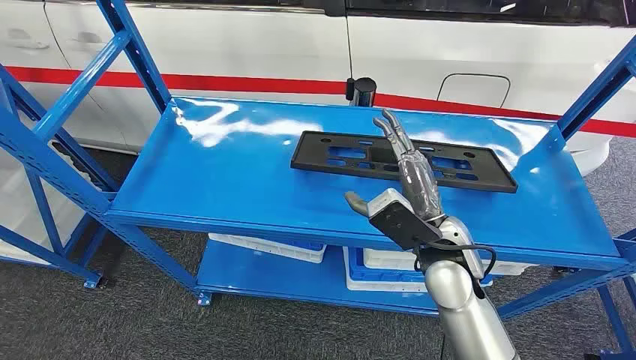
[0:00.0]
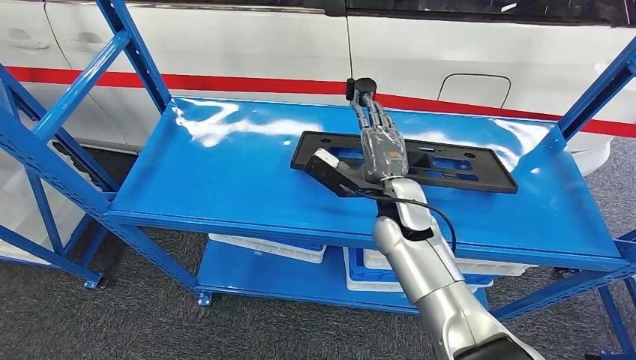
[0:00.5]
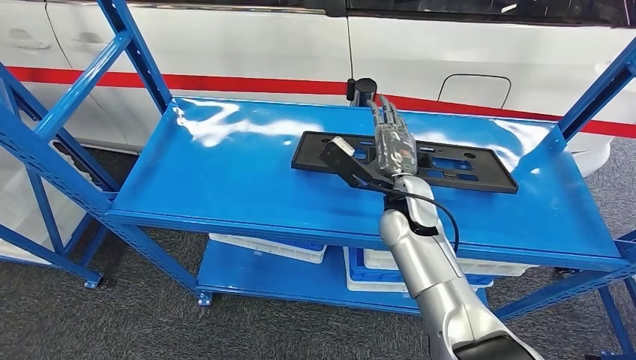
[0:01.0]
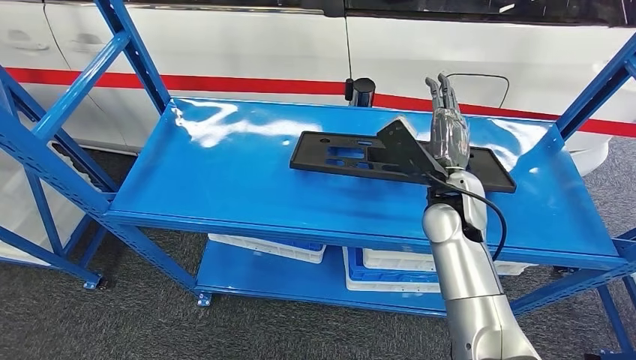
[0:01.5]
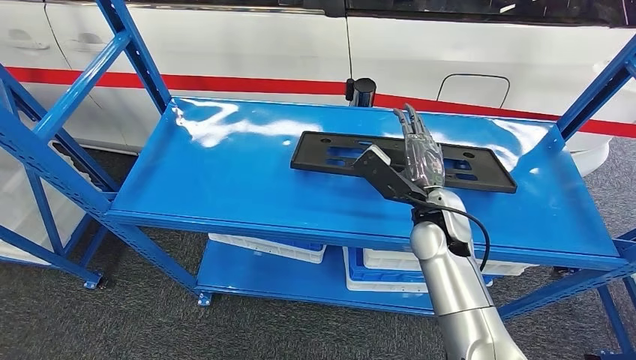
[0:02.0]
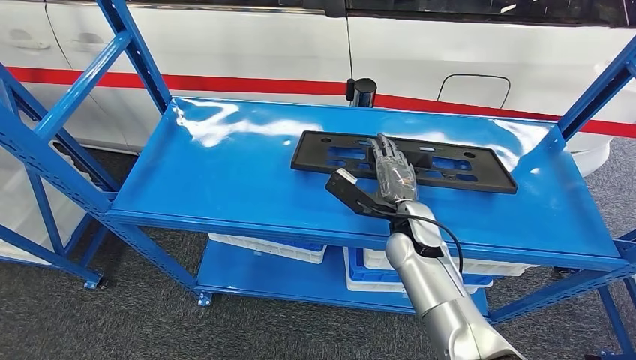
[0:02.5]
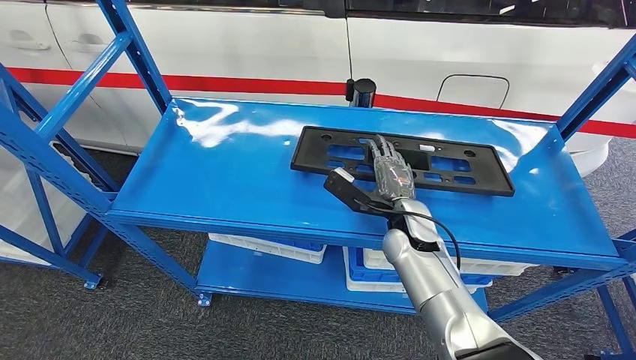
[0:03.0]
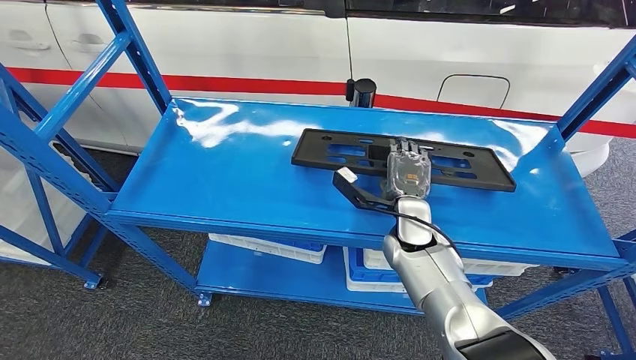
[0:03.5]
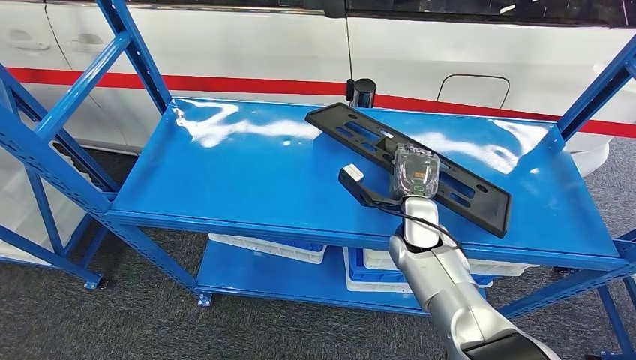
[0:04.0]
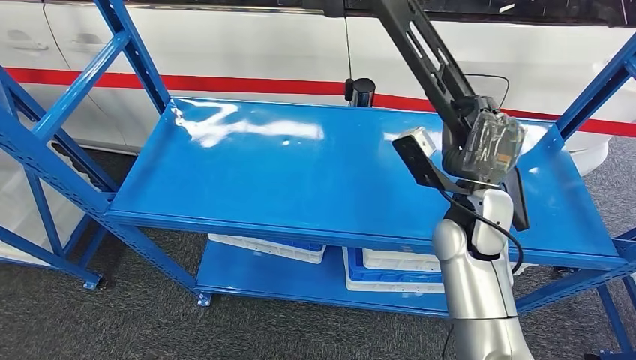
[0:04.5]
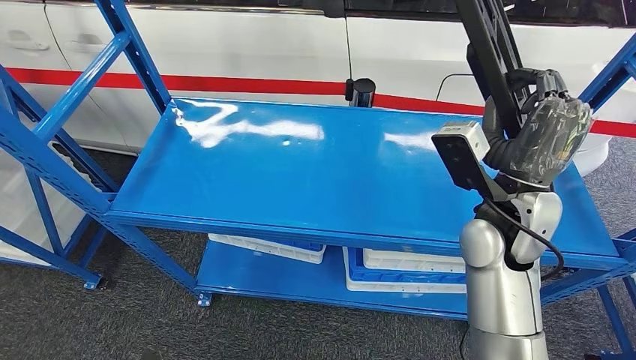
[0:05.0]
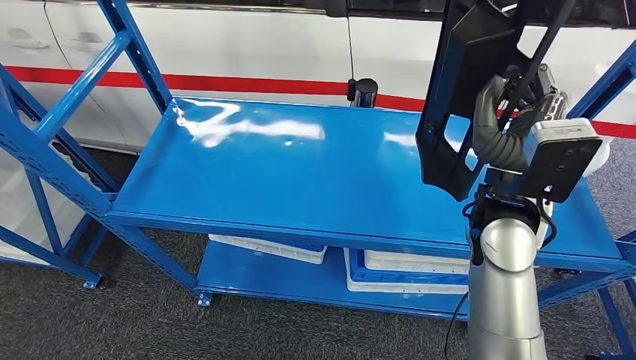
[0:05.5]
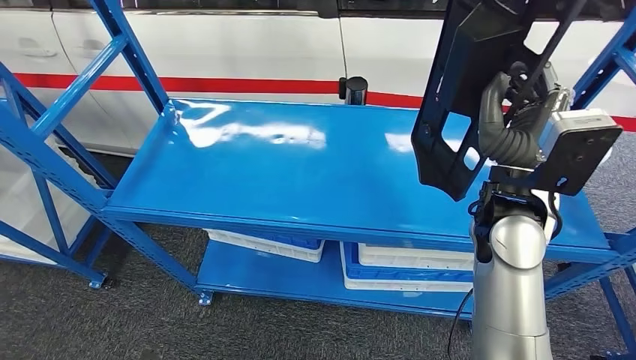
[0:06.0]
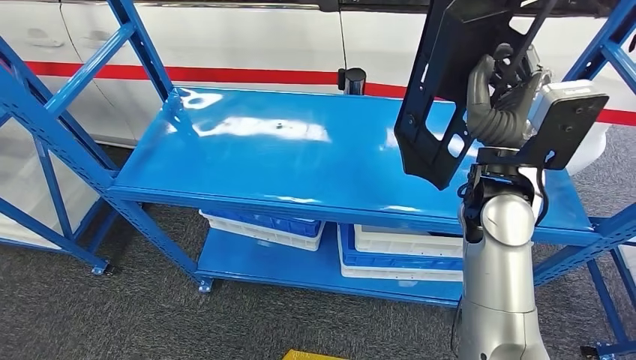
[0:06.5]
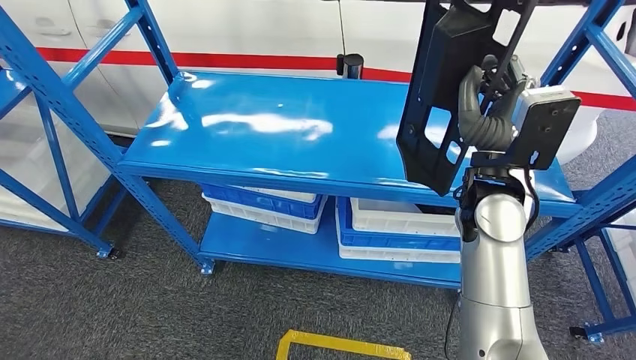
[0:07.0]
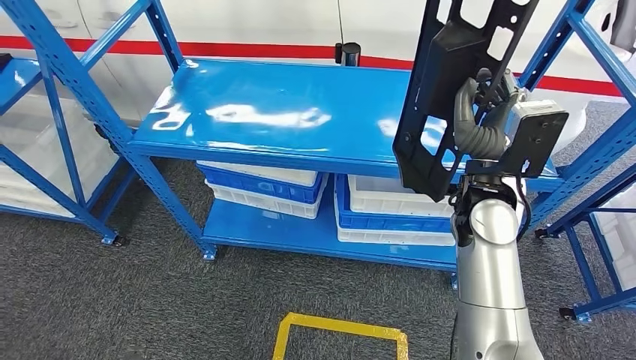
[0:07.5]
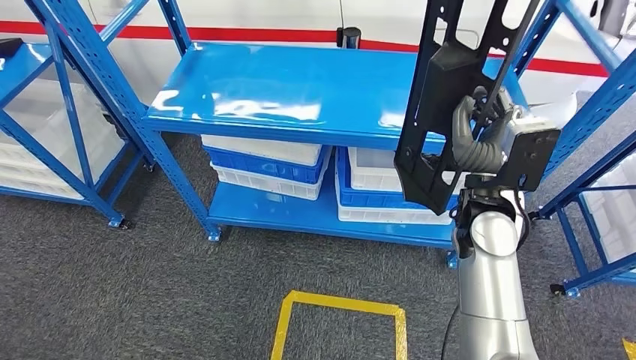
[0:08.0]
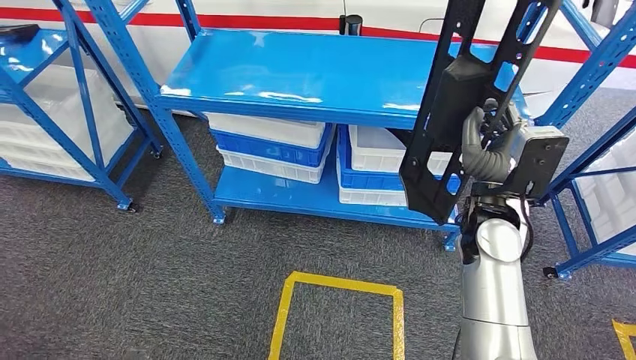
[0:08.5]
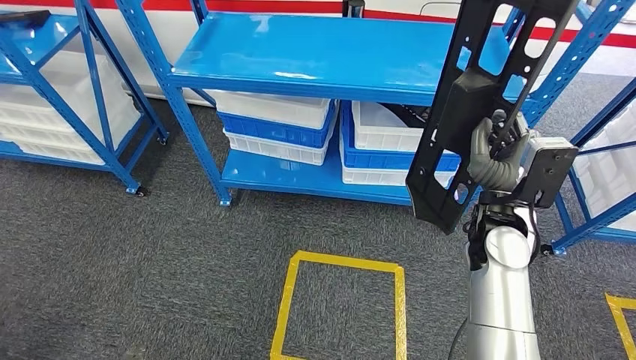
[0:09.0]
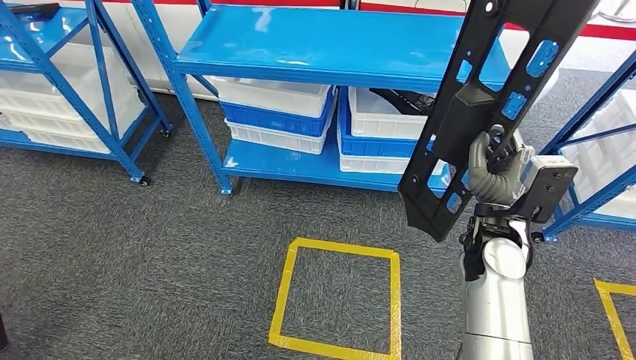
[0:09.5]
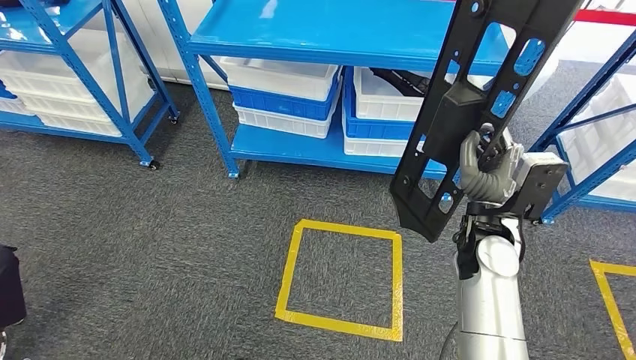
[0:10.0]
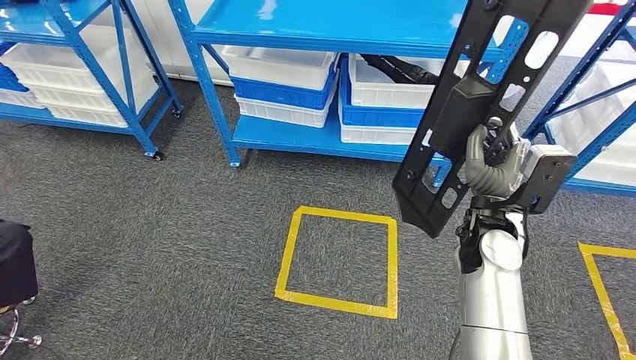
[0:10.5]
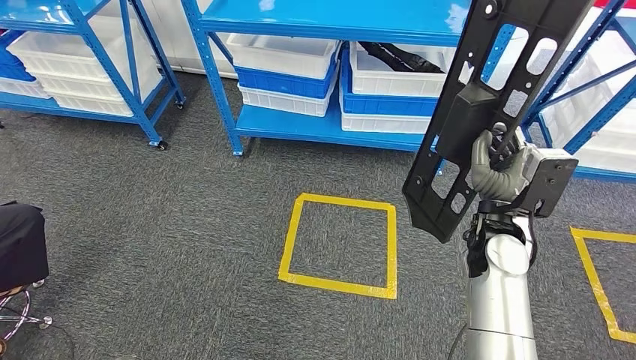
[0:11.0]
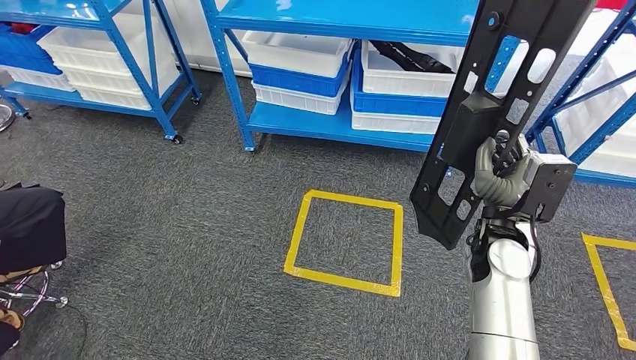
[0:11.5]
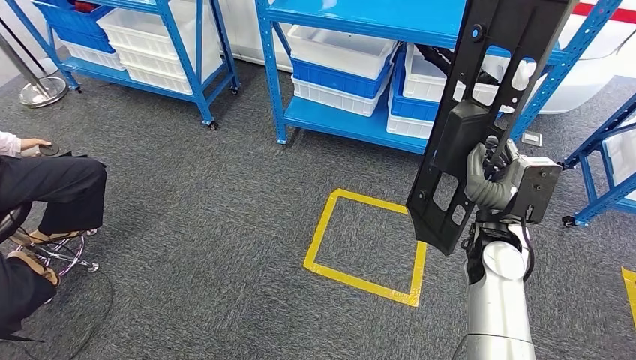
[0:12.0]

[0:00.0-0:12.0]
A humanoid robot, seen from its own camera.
Step, 0:00.0 to 0:05.5: Pick up the large material from the shelf.
0:02.0 to 0:04.0: The right hand is displaced downward by about 5 cm.

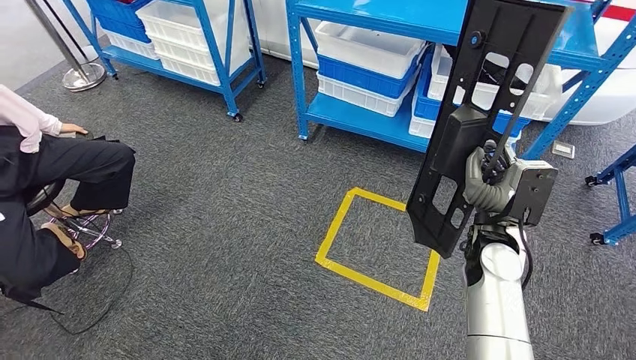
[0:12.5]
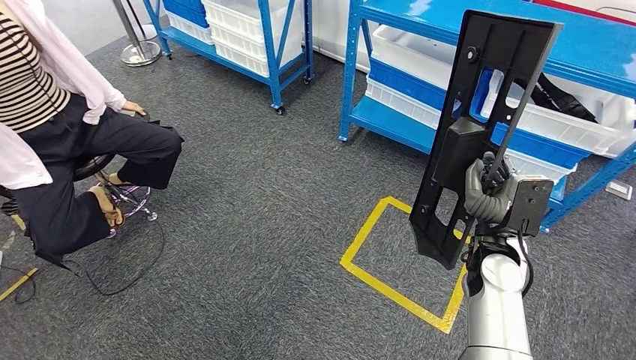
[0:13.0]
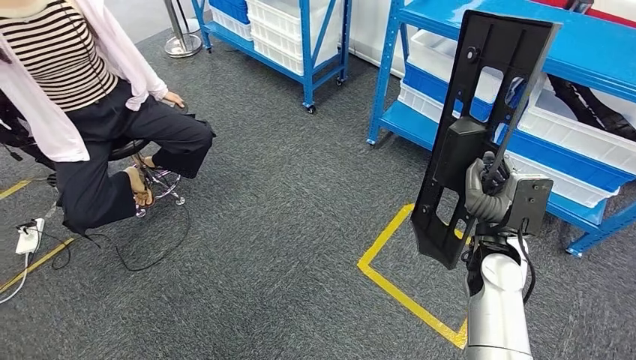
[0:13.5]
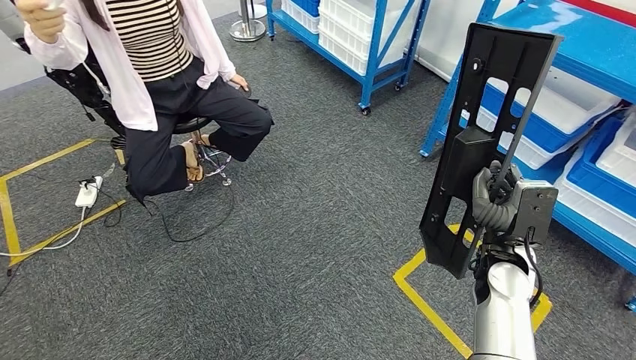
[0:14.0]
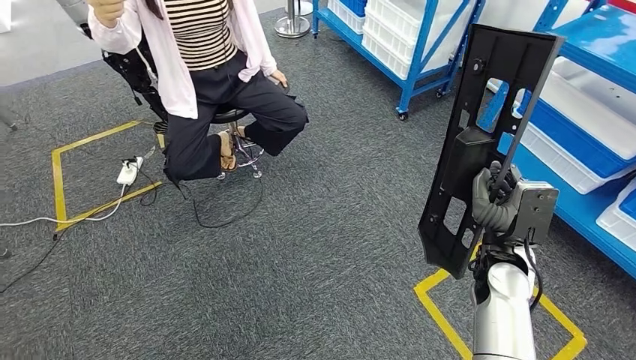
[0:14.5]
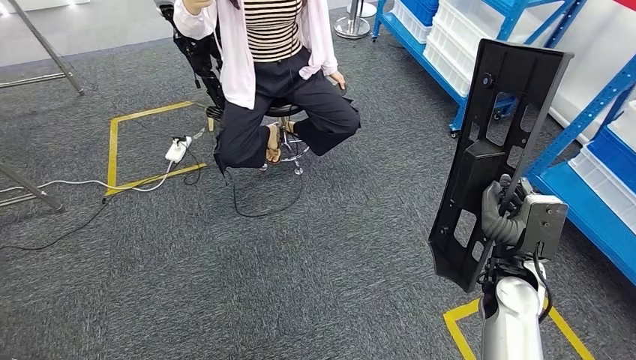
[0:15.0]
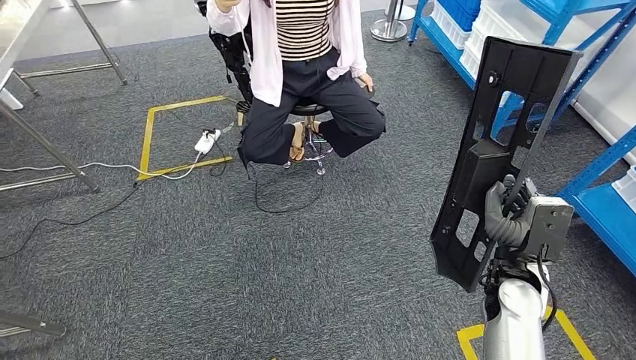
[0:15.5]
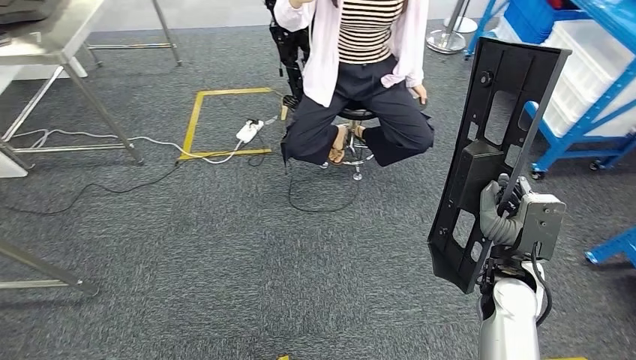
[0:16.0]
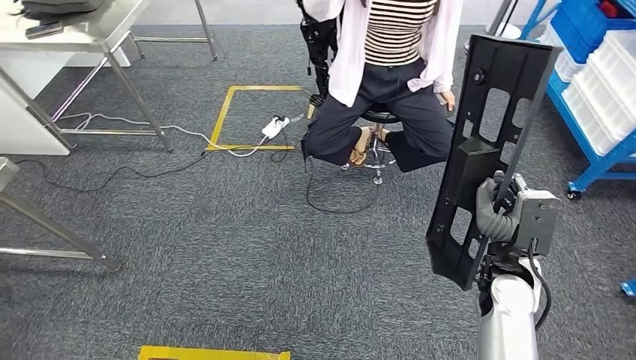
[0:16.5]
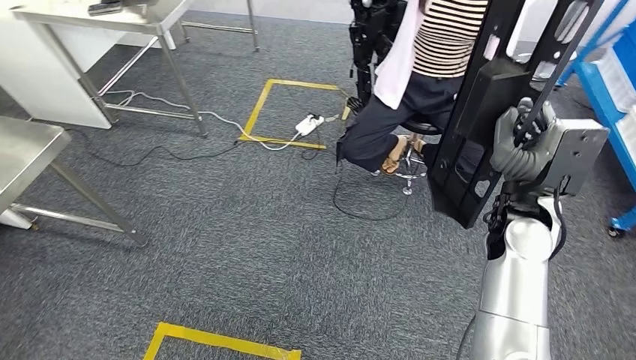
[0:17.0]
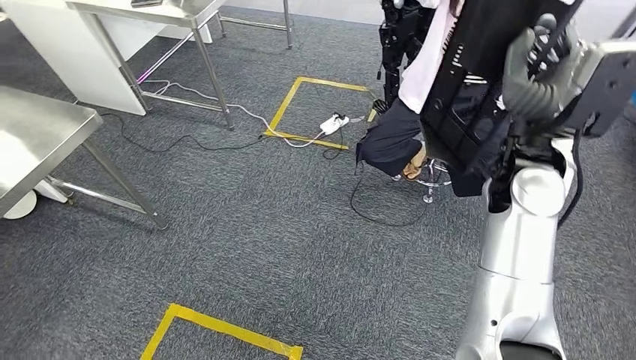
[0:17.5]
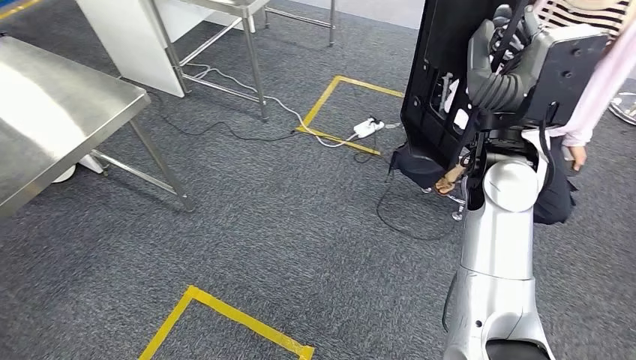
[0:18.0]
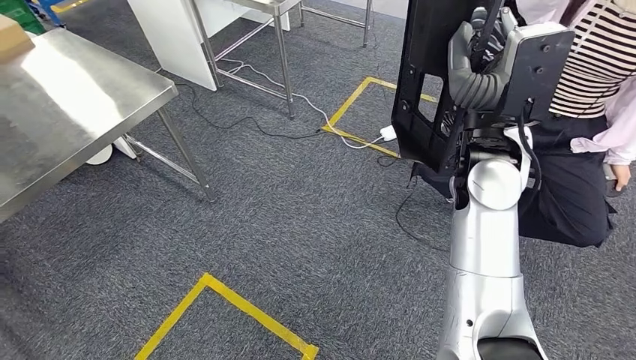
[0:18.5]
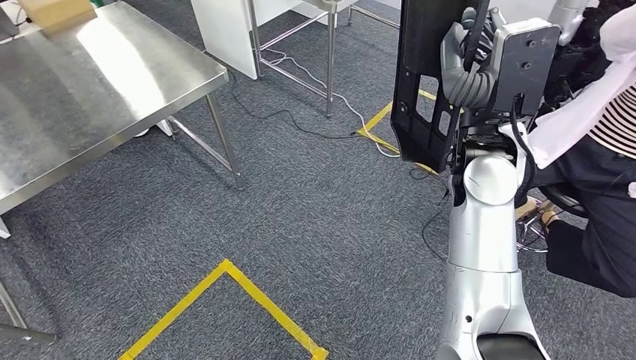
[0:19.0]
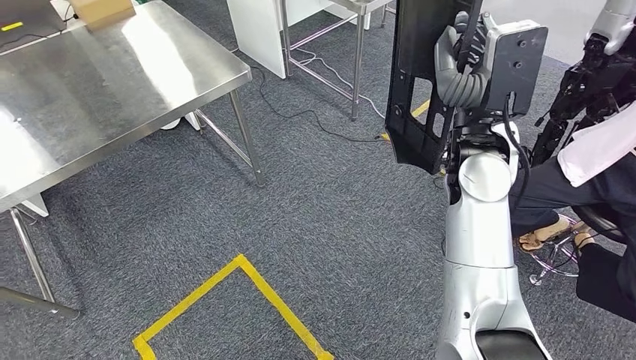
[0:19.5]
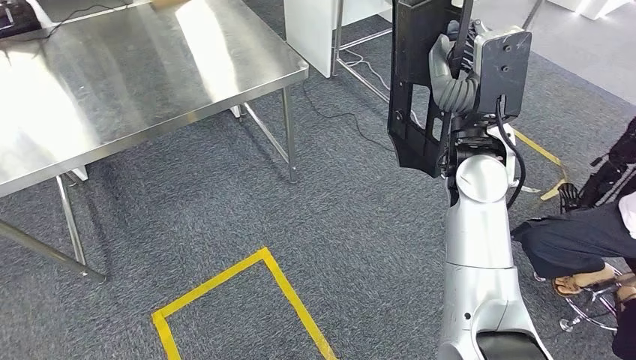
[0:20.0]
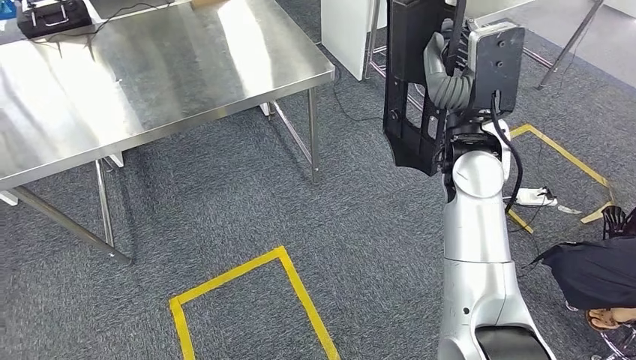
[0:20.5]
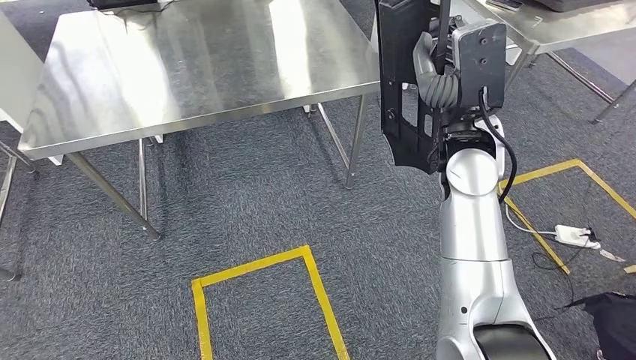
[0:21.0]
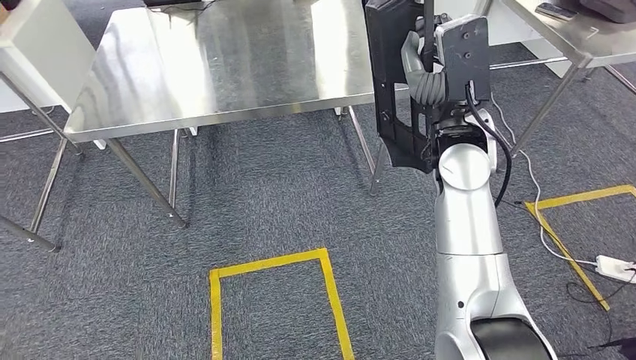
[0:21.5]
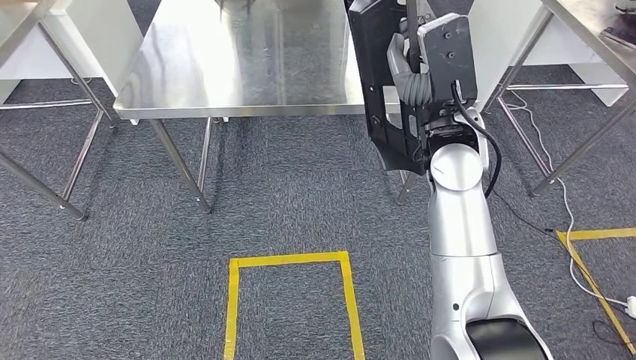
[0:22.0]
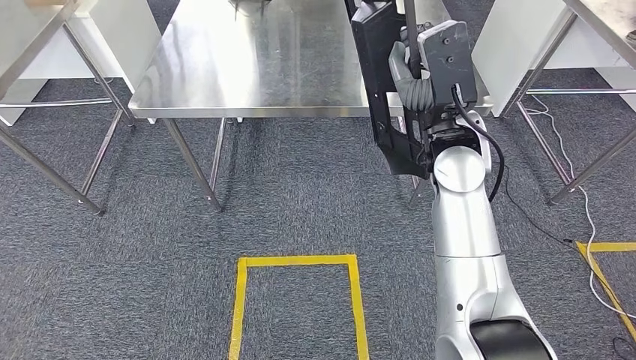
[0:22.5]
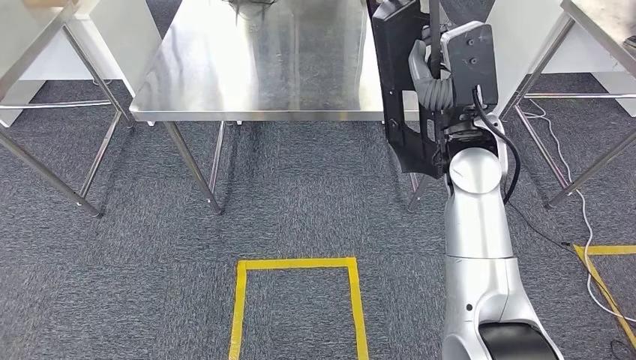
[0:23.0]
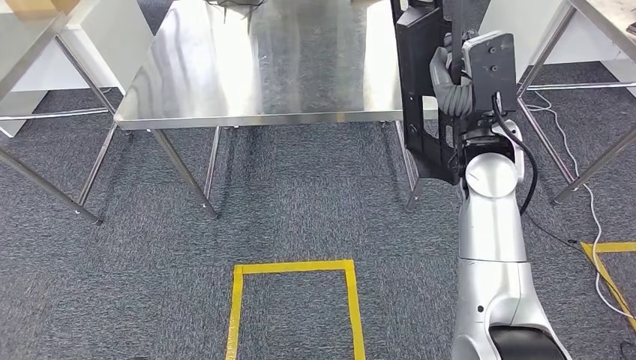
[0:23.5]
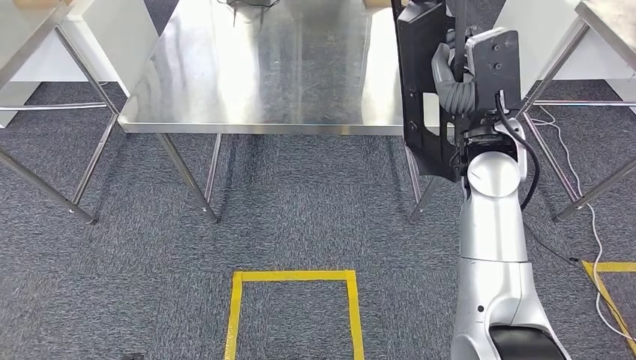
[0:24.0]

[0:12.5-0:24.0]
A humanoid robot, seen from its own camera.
Step, 0:12.5 to 0:21.5: Move the large material to the workbench.
